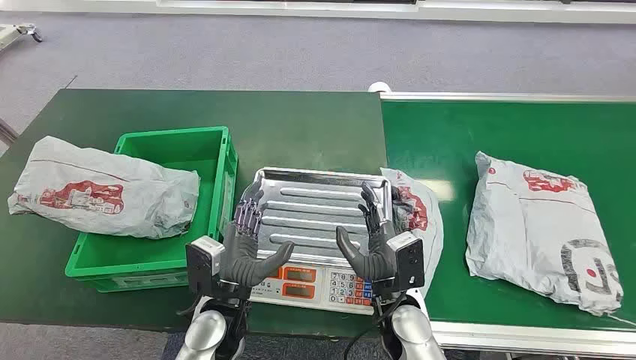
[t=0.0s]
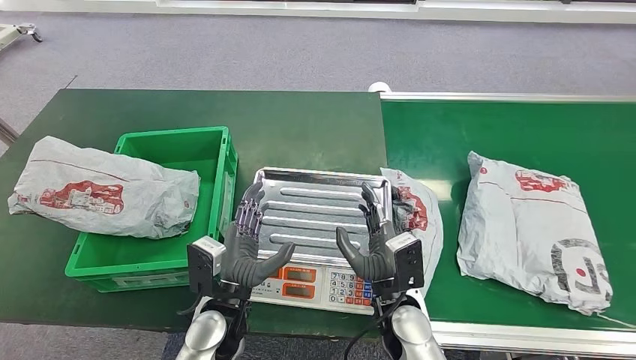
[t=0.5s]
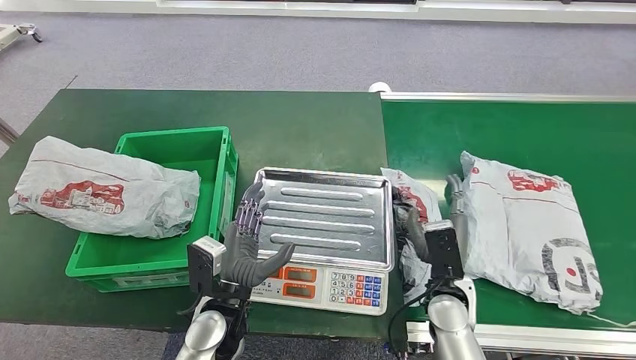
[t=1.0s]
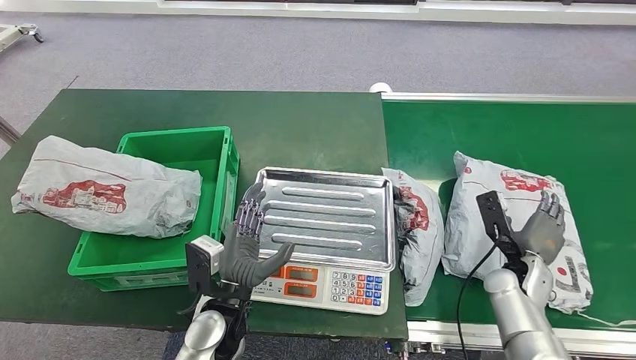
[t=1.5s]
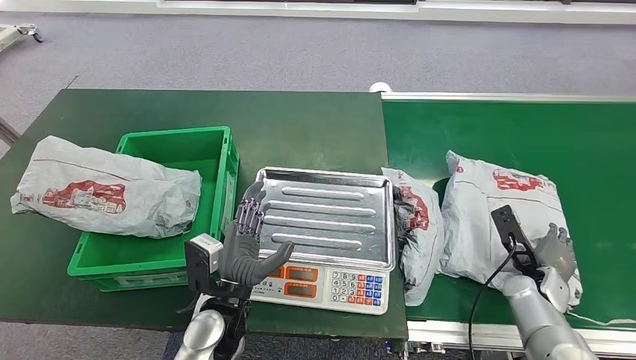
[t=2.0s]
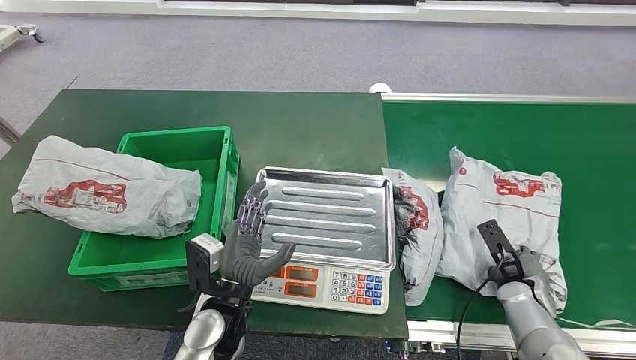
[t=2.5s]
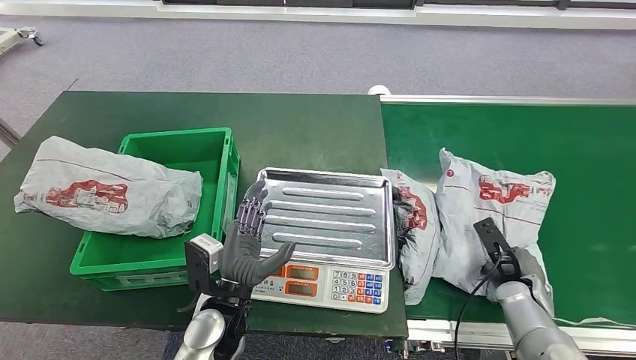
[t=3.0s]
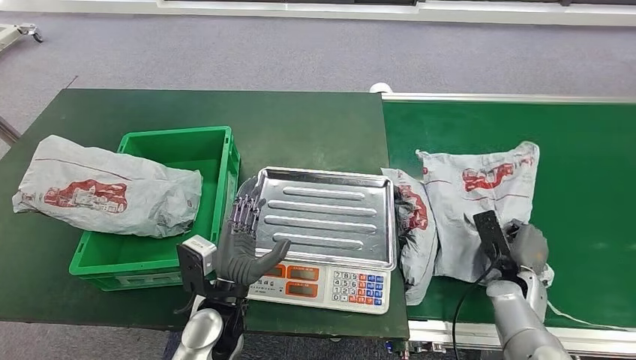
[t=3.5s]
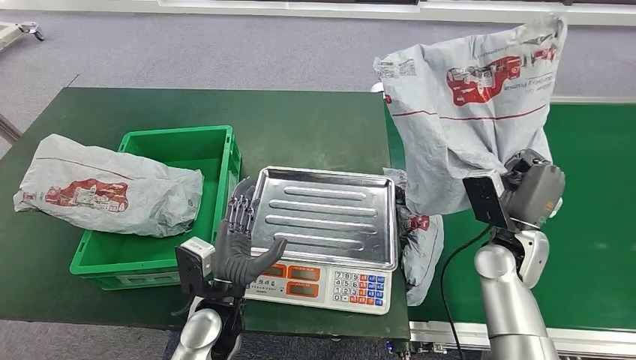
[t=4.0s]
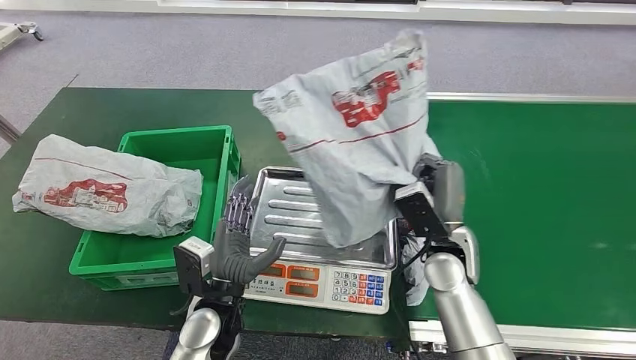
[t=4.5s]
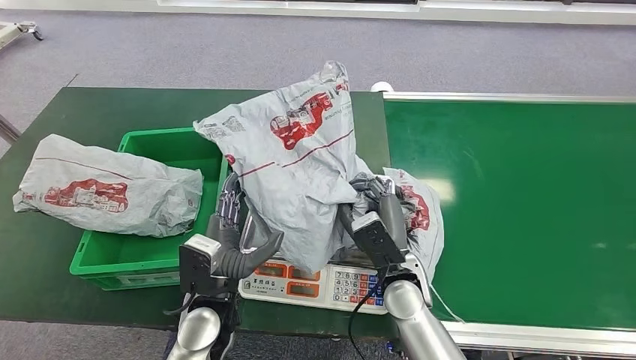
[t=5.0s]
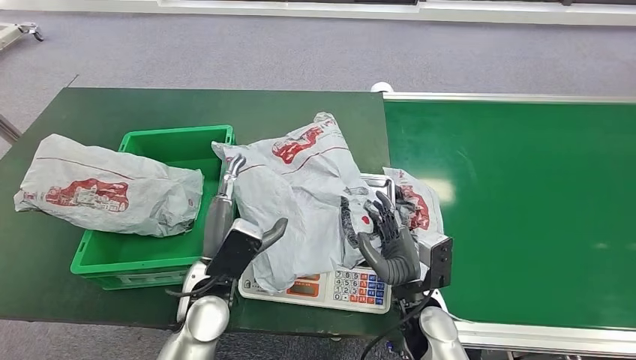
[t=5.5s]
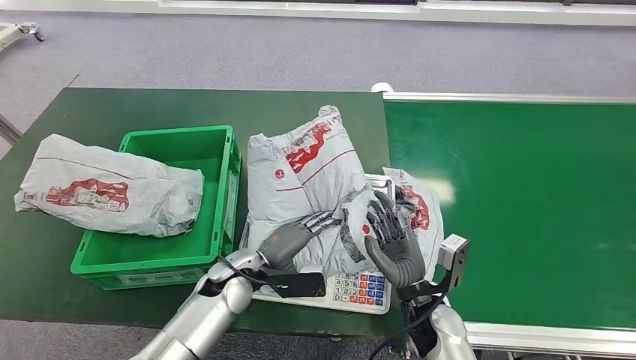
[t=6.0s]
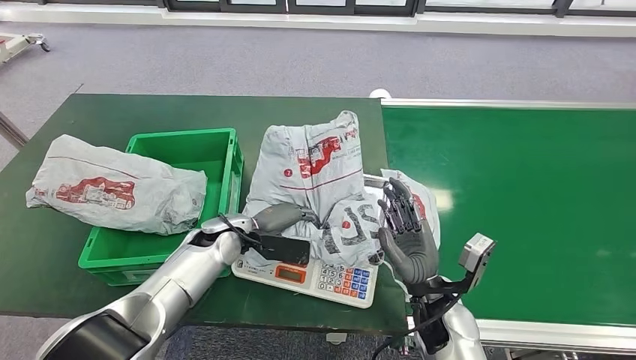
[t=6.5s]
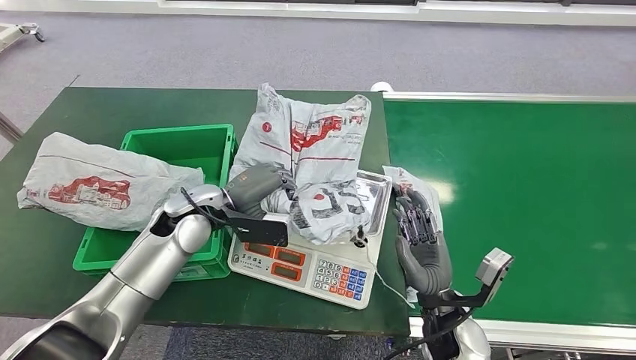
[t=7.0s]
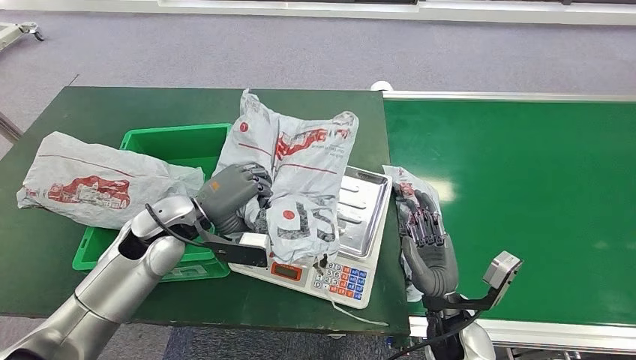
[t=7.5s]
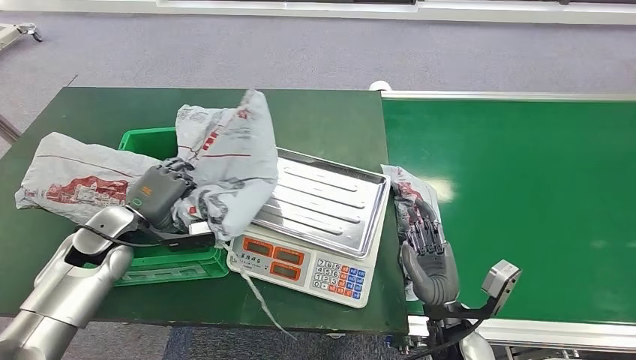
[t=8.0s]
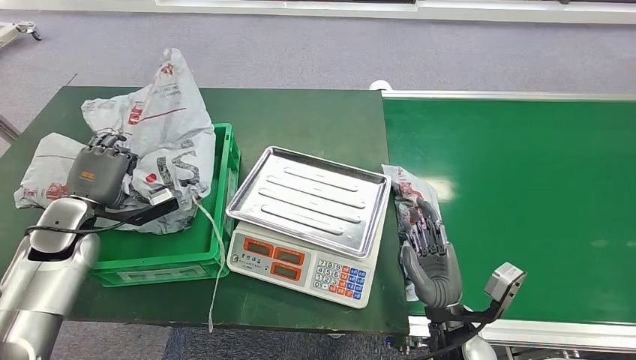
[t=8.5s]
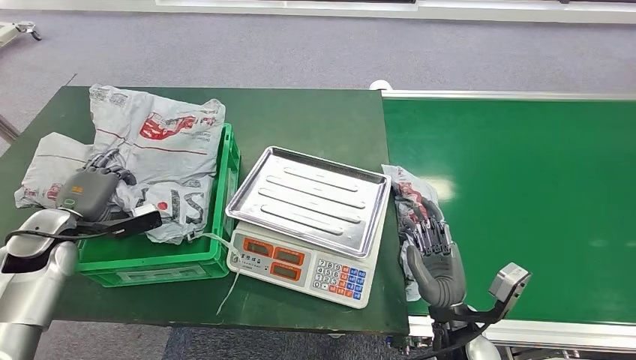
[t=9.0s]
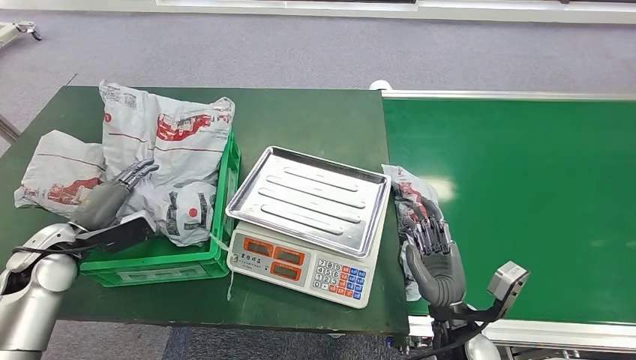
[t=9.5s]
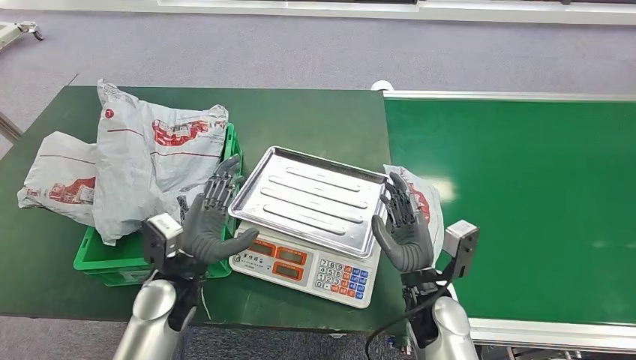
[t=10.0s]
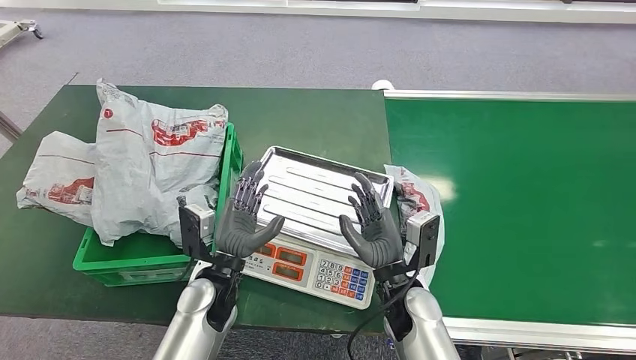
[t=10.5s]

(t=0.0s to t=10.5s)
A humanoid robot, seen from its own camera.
Task of the whole recording: Weigh the package on the weighing device and place it in the left basket.
Step, t=0.0s - t=4.0s: Pick up the package from the conveyor belt.
Step, t=4.5s - t=6.5s: Place the package onto the inbound machine.
Step, t=7.0s - t=8.5s: Pick up the package from the inbound machine.
Step, t=9.0s - t=10.5s: Place the package into the parcel locker.
